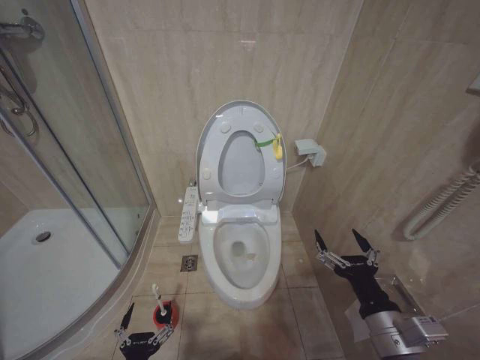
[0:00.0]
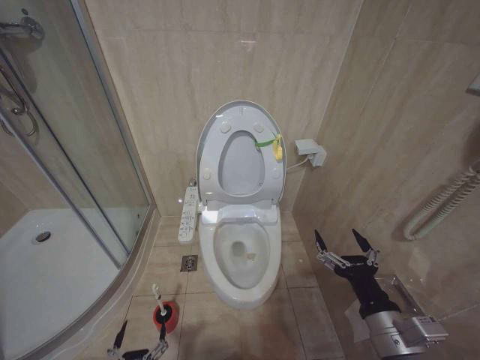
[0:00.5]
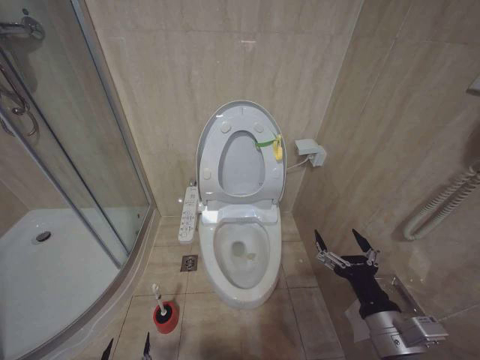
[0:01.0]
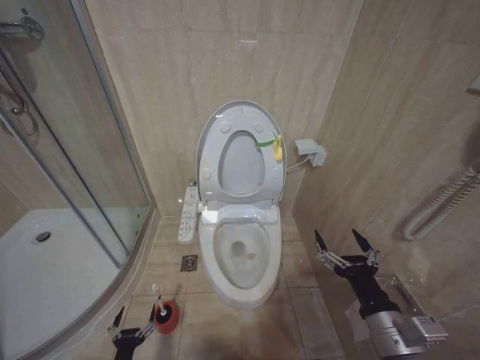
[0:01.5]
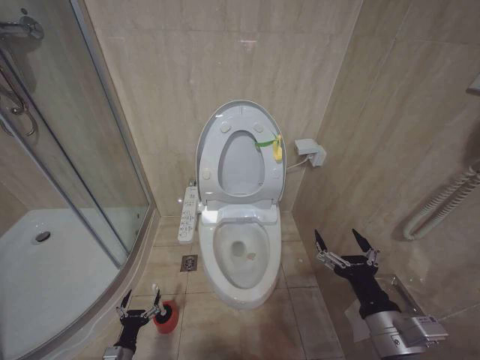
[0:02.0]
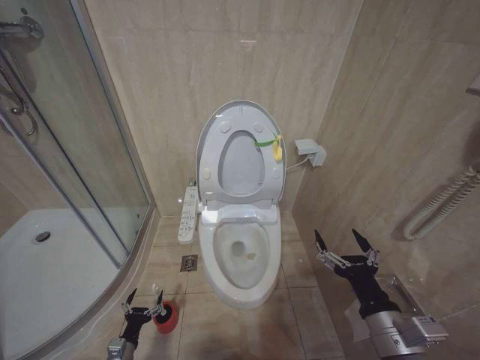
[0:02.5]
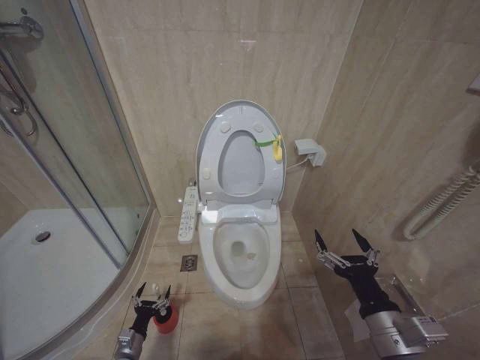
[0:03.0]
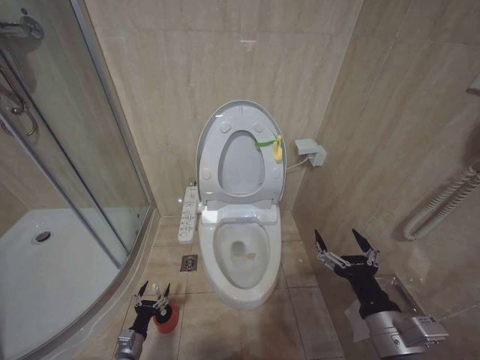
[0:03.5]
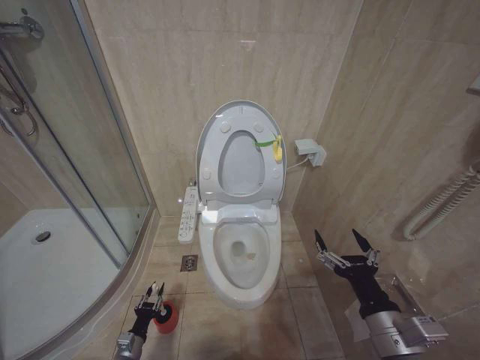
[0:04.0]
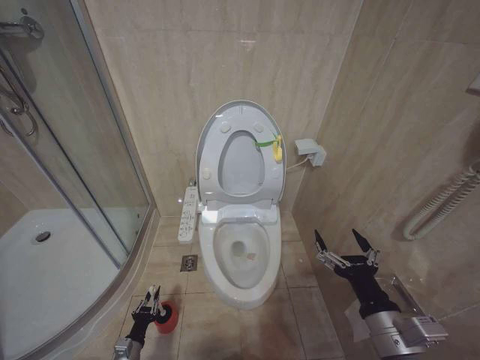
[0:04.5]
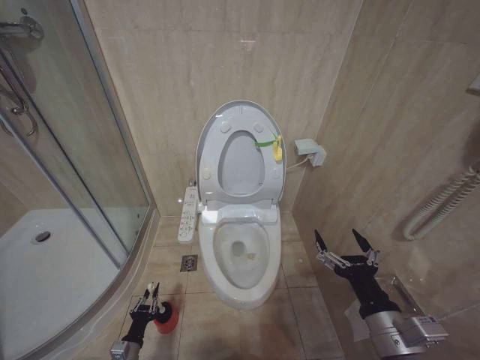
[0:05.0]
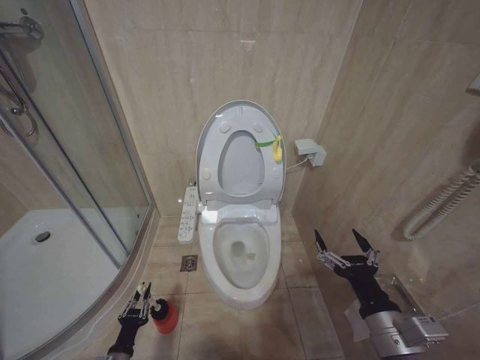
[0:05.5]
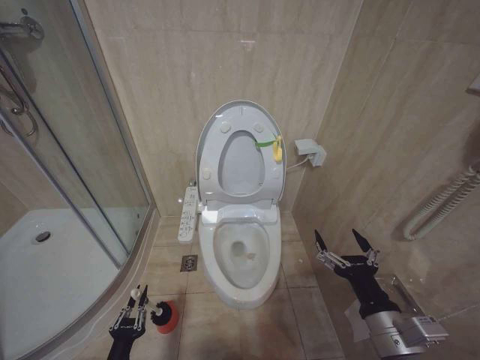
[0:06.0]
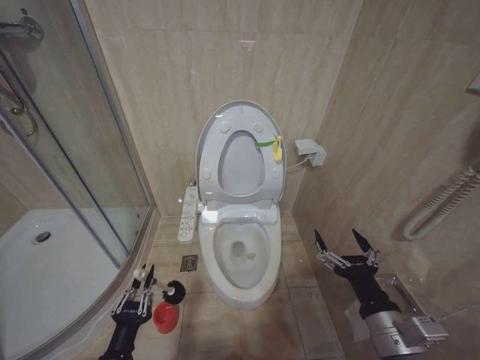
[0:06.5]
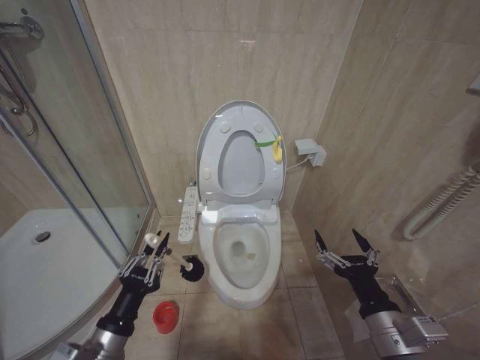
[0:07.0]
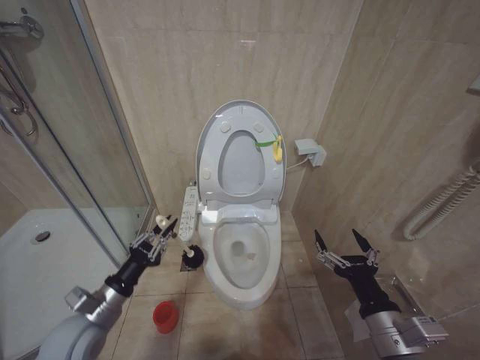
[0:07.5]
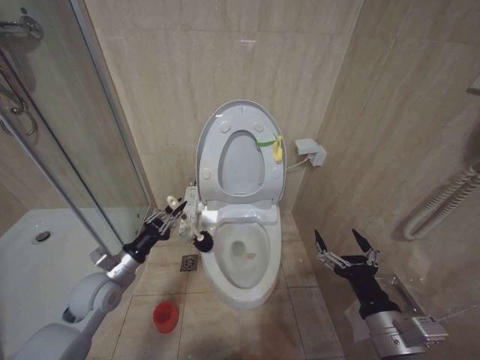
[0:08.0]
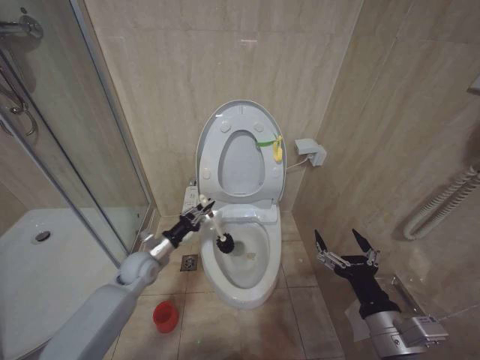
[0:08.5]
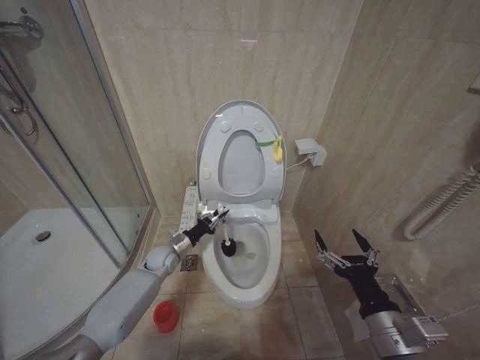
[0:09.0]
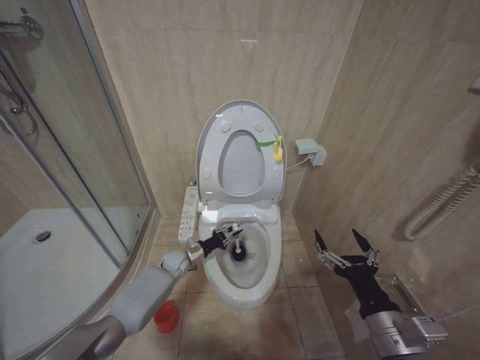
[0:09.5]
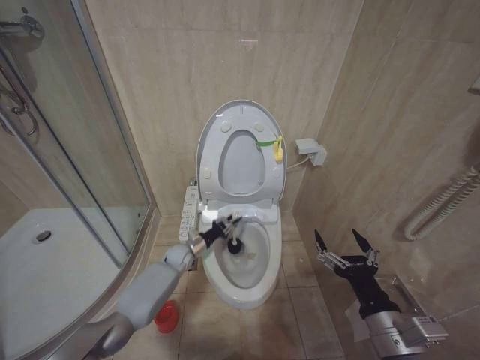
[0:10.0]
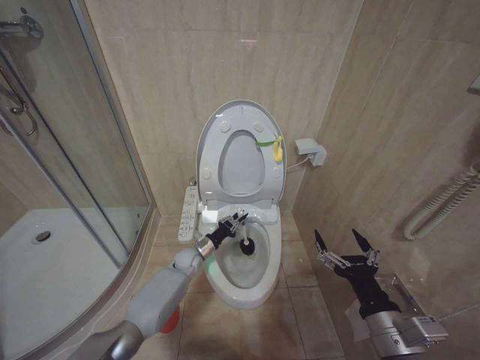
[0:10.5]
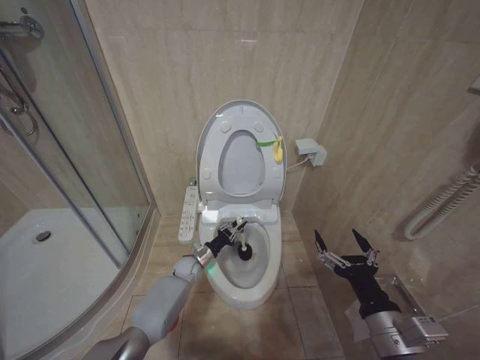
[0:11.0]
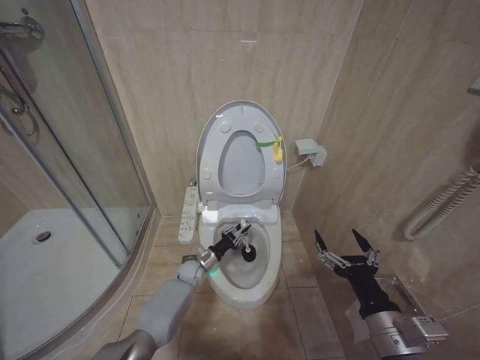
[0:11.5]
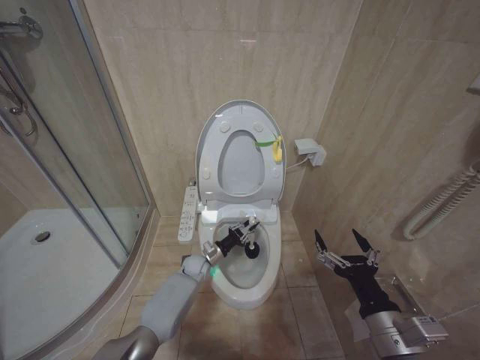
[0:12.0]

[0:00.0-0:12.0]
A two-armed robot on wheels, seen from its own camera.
Task of the whole recording: Open the toilet lid, clean the toilet bowl with a toilet brush, close the toilet lid, and flush.
0:00.0 to 0:02.0: The left gripper heads downward, forward and to the left, covering roughly 20 cm.
0:02.0 to 0:04.0: The left gripper moves approximately 5 cm, and closes.
0:04.0 to 0:06.0: The left gripper moves upward and backward, roughly 15 cm, and closes.
0:06.0 to 0:08.0: The left gripper heads upward and forward, covering approximately 25 cm.
0:08.0 to 0:10.0: The left gripper shifts some 30 cm forward, downward and to the right.
0:10.0 to 0:12.0: The left gripper travels to the right by some 5 cm.

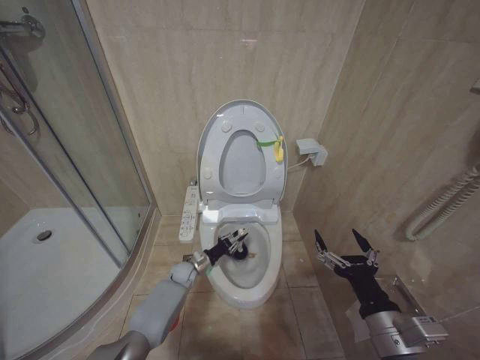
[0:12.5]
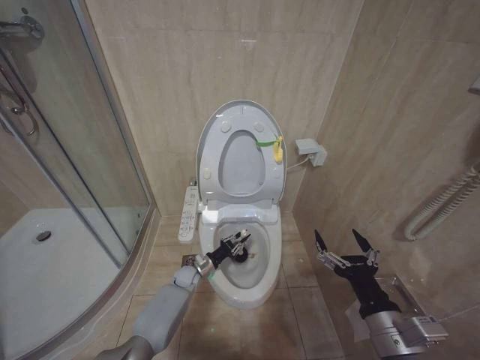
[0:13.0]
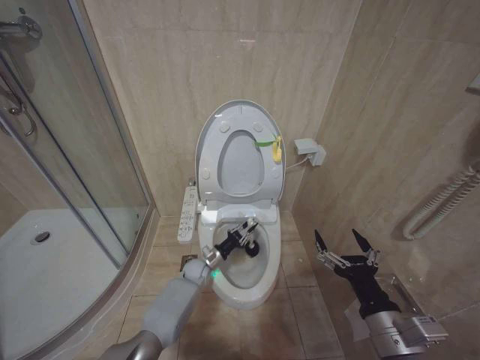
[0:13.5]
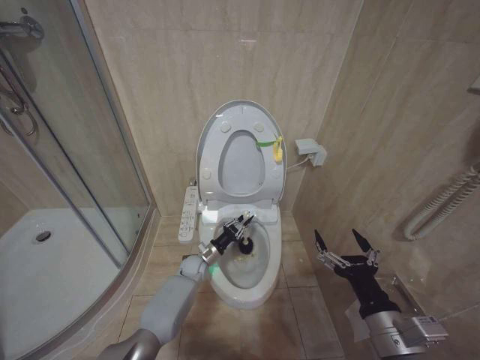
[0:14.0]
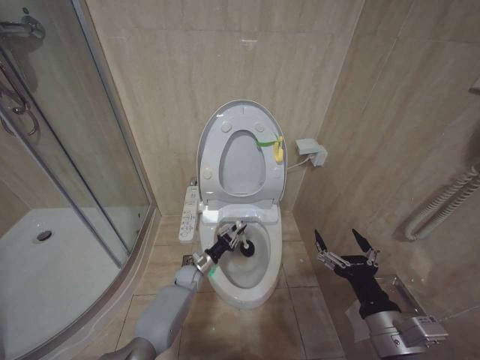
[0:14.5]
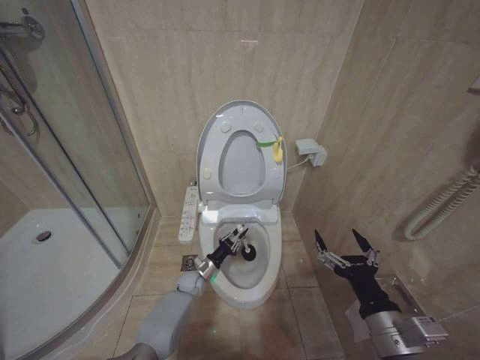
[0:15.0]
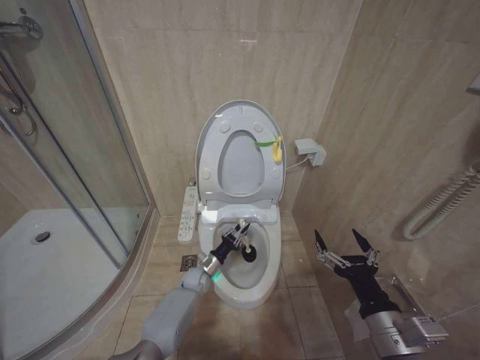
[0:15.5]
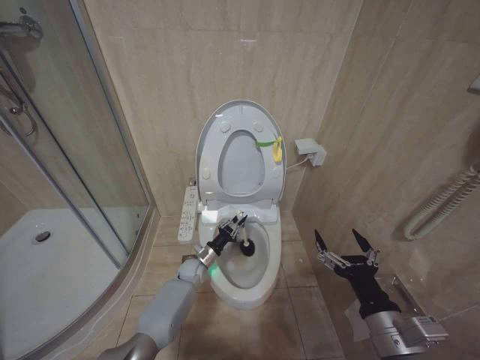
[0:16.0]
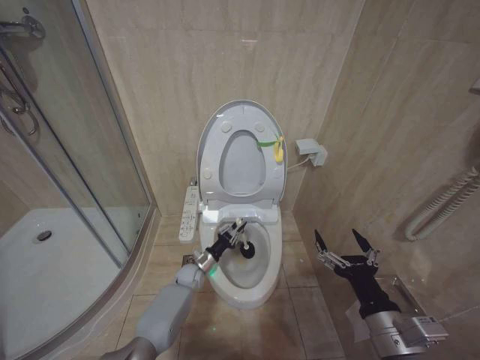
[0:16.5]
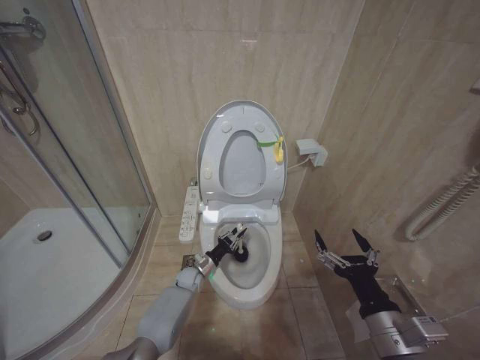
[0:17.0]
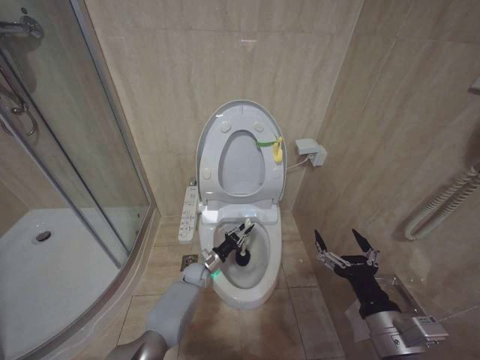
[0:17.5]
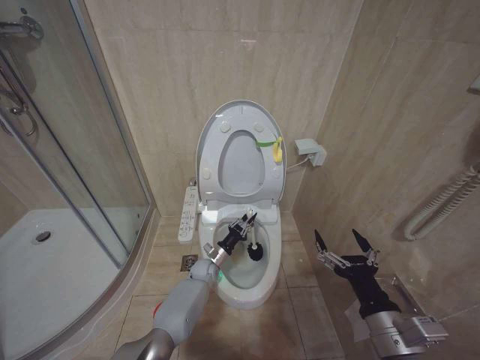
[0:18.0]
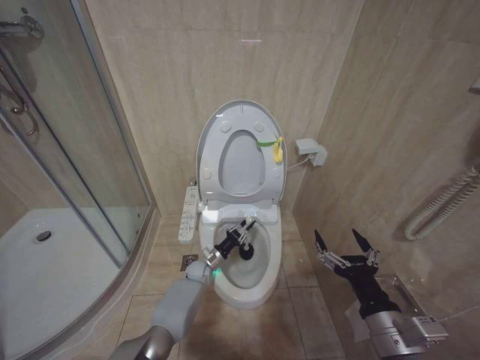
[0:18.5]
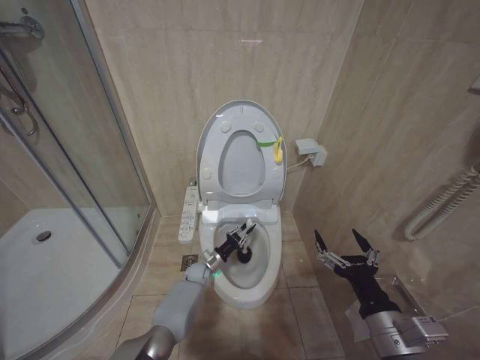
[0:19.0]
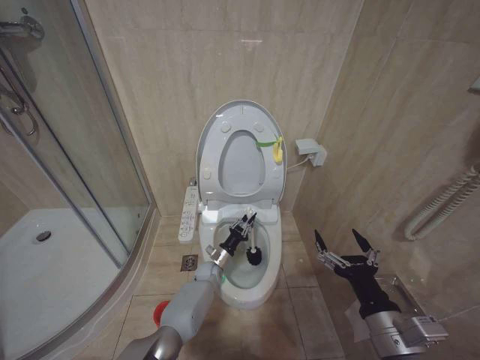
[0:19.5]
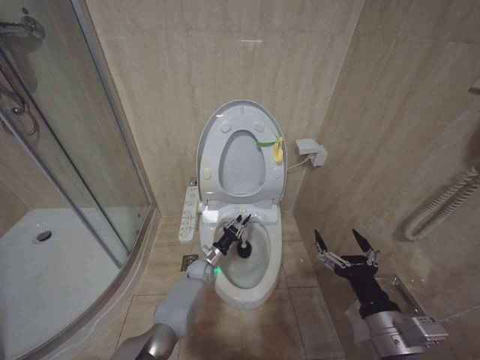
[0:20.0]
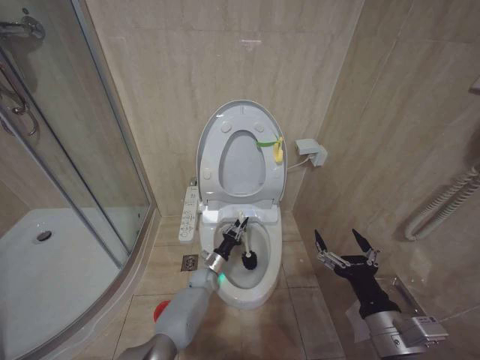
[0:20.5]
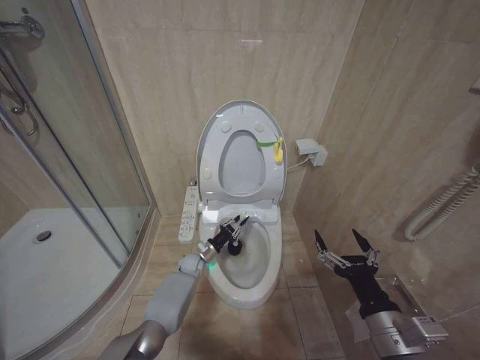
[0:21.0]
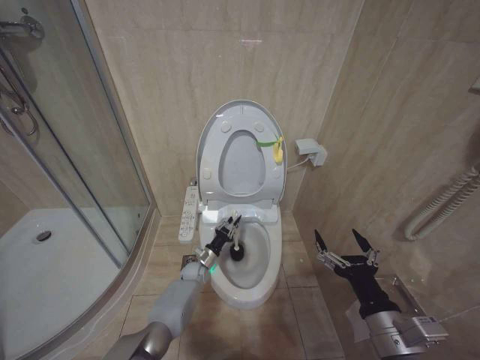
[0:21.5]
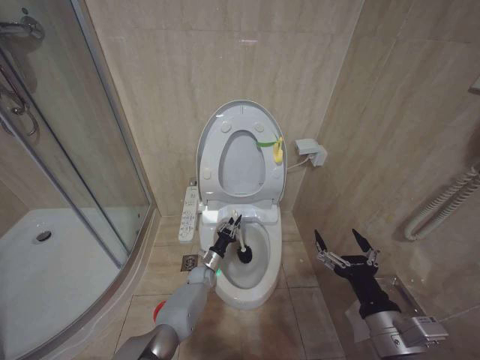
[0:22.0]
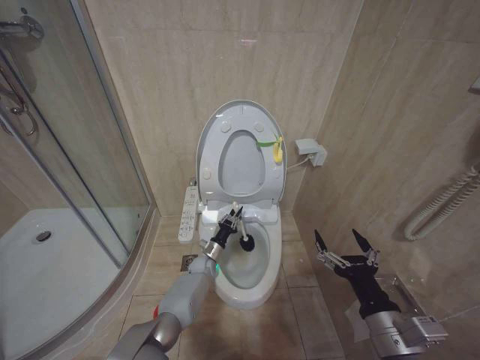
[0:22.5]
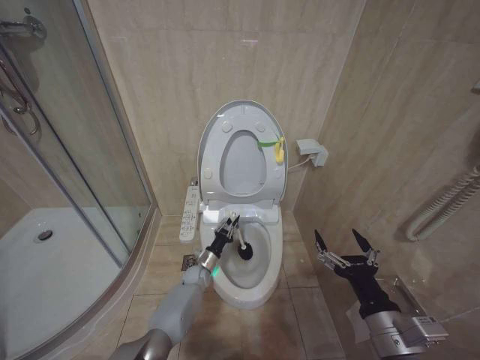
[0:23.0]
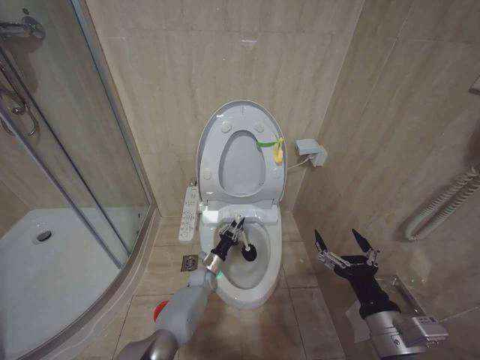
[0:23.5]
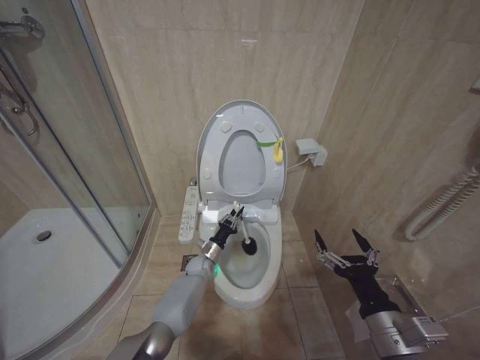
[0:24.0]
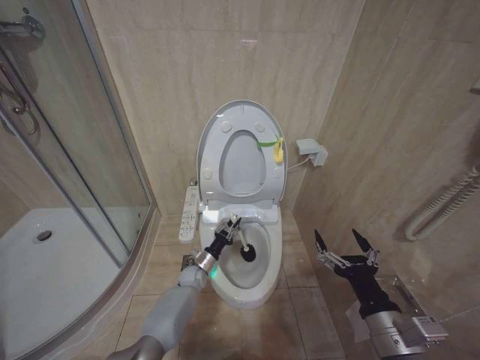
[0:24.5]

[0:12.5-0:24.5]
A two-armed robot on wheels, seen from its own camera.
Task of the whole recording: Open the toilet lid, clean the toilet bowl with a toilet brush, close the toilet lid, and flush.
0:22.5 to 0:24.5: The grippers move only a little.

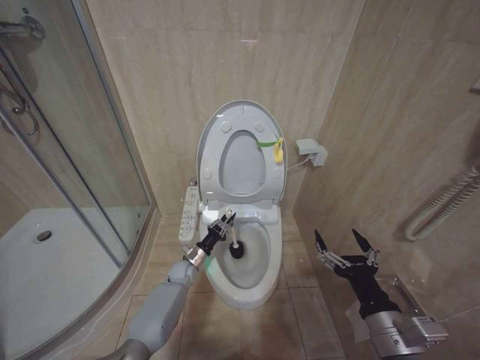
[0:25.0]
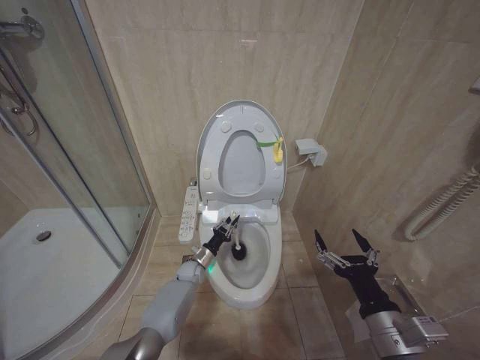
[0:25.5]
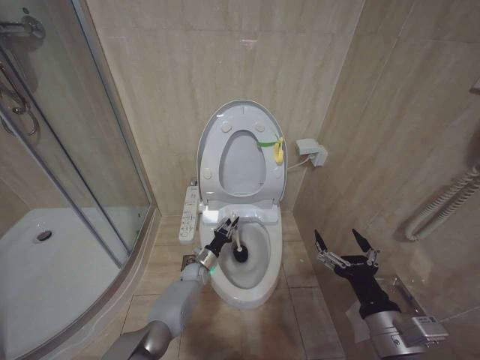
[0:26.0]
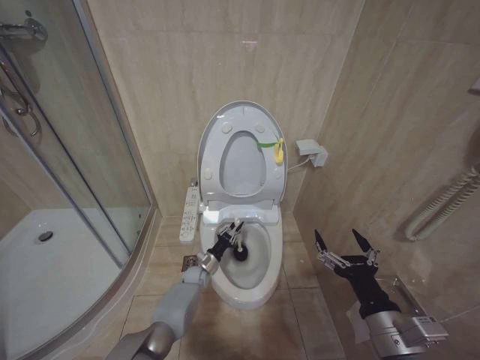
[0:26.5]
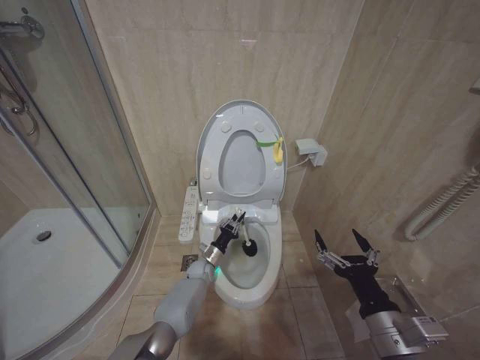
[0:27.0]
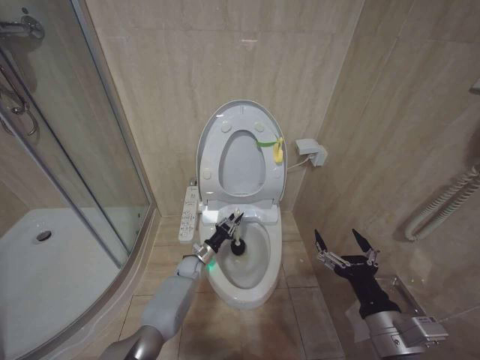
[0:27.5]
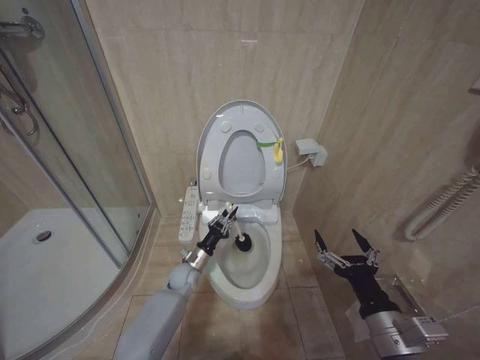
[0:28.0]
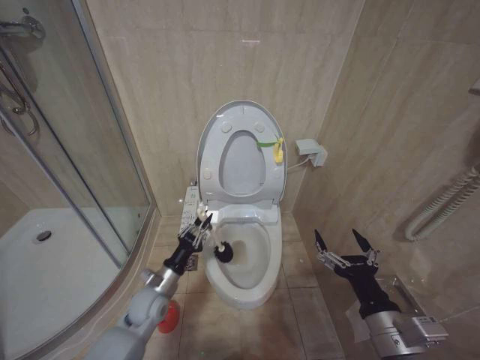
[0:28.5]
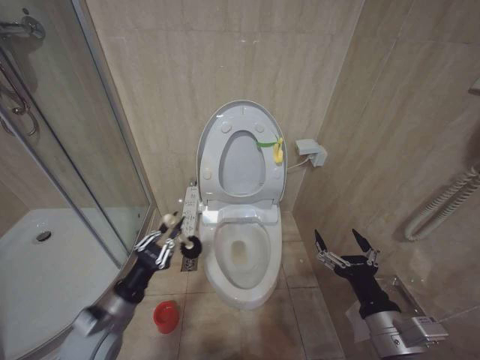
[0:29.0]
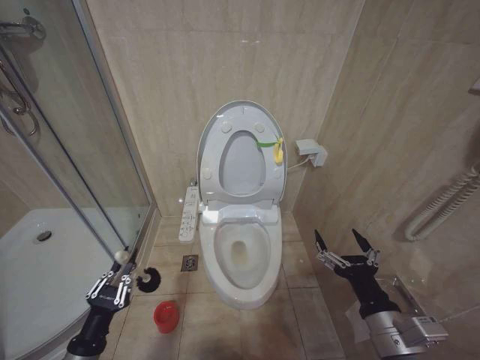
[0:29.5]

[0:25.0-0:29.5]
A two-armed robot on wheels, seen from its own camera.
Task of the whole recording: Open the toilet lid, clean the toilet bowl with a toilet brush, close the toilet lid, and flush.
0:25.0 to 0:27.0: The left gripper shifts some 5 cm to the right.
0:27.0 to 0:29.5: The left gripper heads backward, to the left and upward, covering roughly 40 cm.
